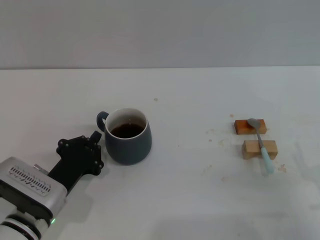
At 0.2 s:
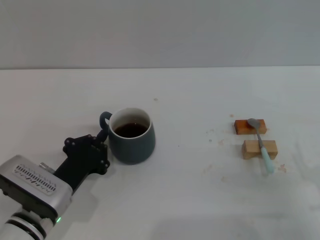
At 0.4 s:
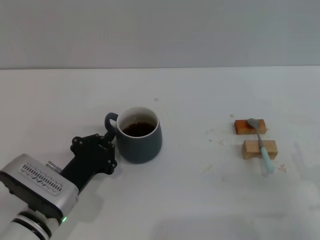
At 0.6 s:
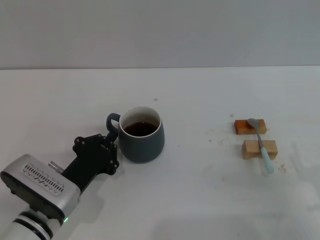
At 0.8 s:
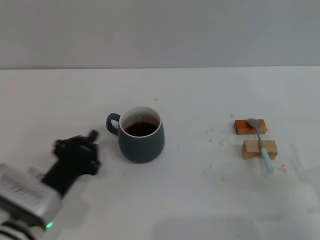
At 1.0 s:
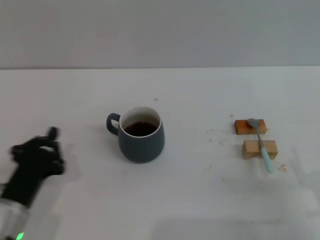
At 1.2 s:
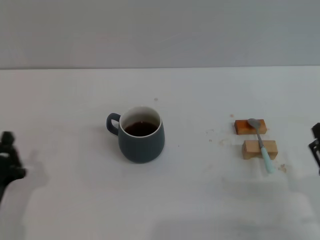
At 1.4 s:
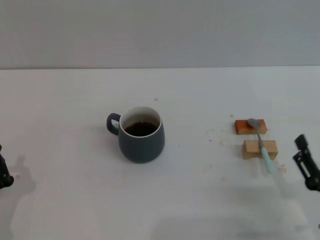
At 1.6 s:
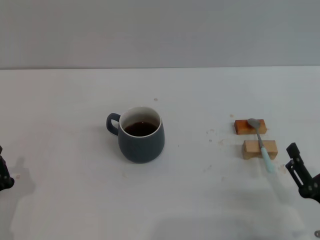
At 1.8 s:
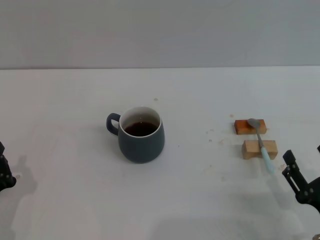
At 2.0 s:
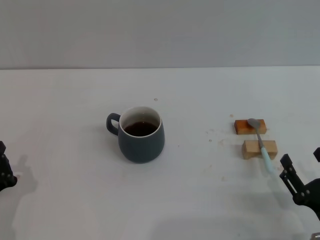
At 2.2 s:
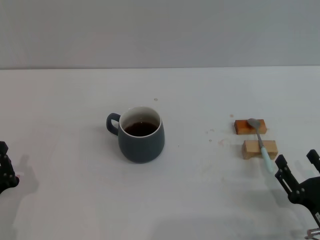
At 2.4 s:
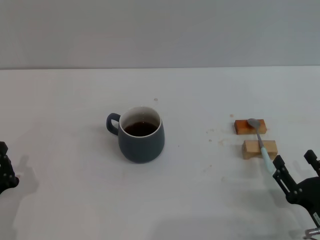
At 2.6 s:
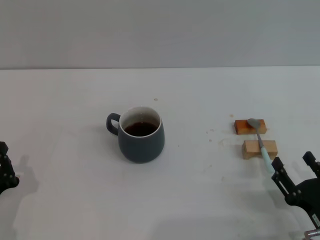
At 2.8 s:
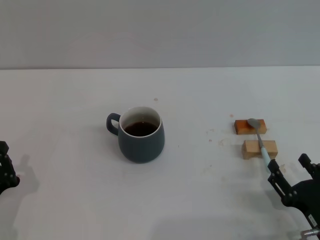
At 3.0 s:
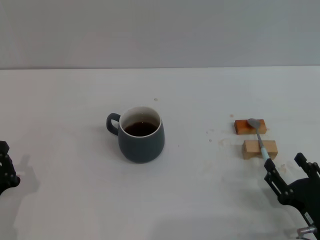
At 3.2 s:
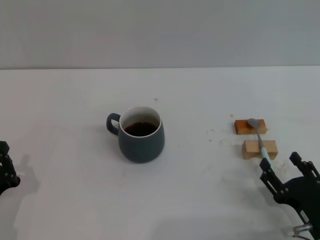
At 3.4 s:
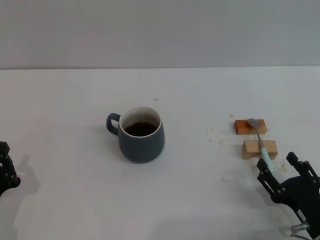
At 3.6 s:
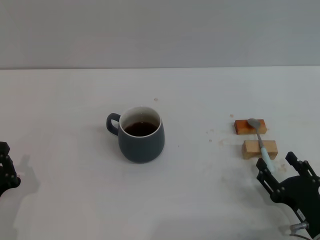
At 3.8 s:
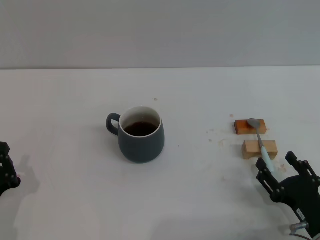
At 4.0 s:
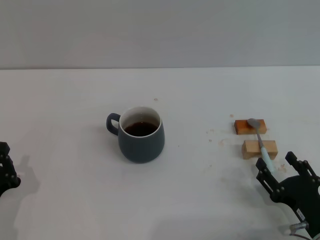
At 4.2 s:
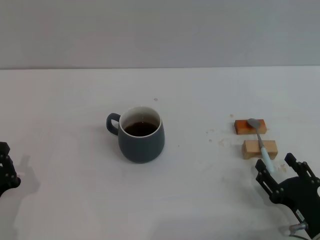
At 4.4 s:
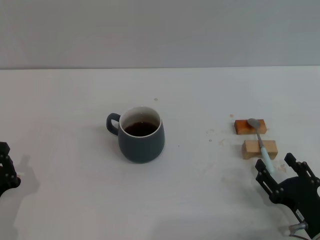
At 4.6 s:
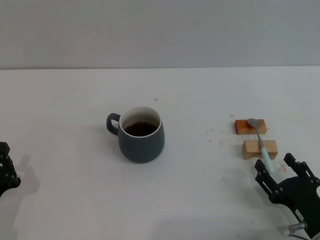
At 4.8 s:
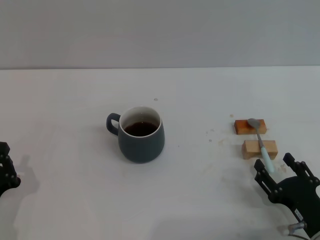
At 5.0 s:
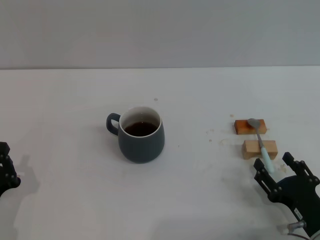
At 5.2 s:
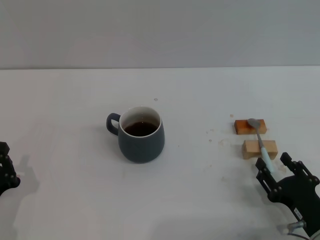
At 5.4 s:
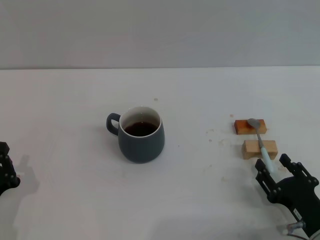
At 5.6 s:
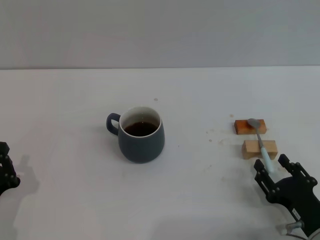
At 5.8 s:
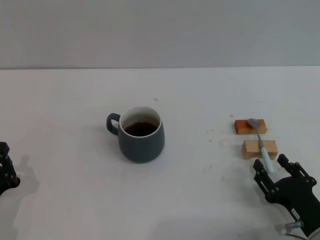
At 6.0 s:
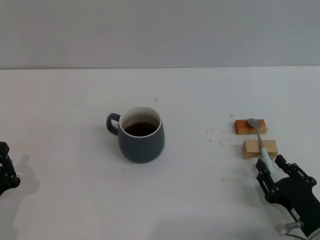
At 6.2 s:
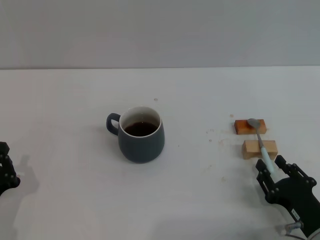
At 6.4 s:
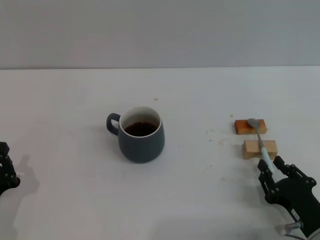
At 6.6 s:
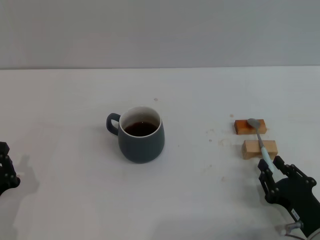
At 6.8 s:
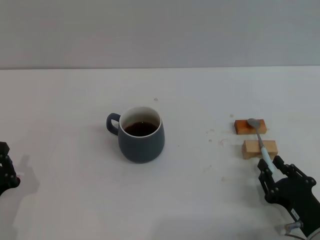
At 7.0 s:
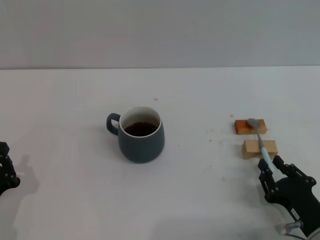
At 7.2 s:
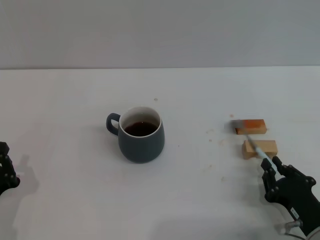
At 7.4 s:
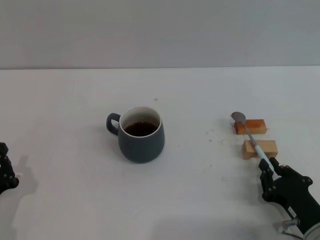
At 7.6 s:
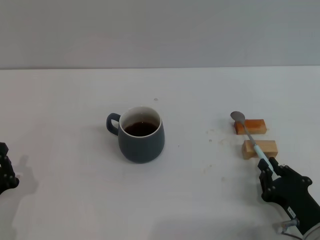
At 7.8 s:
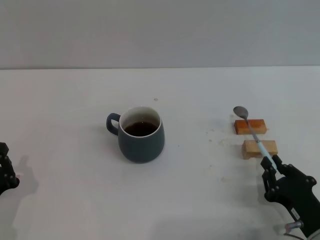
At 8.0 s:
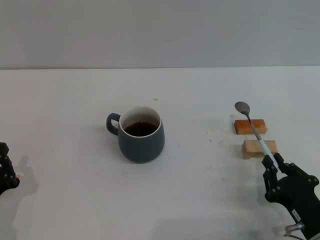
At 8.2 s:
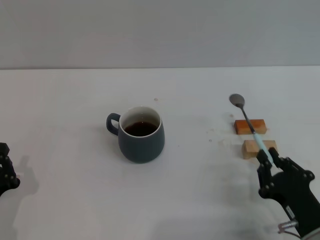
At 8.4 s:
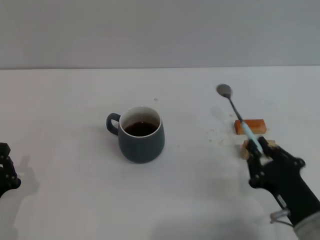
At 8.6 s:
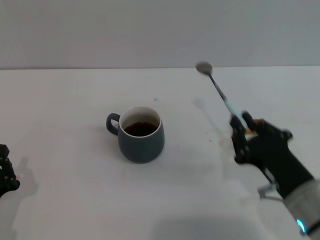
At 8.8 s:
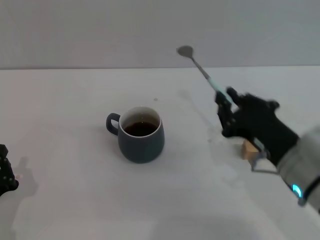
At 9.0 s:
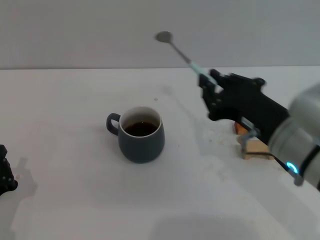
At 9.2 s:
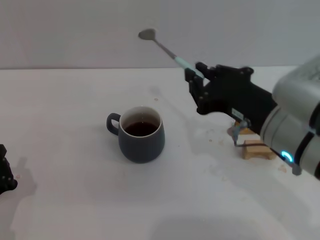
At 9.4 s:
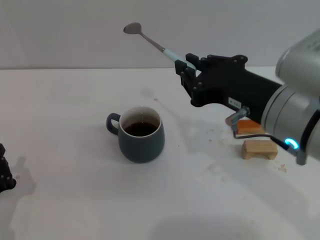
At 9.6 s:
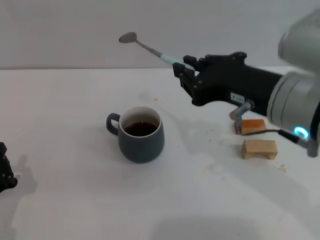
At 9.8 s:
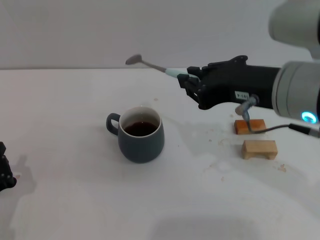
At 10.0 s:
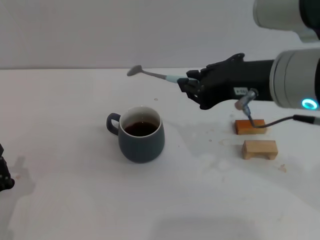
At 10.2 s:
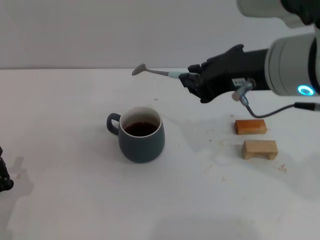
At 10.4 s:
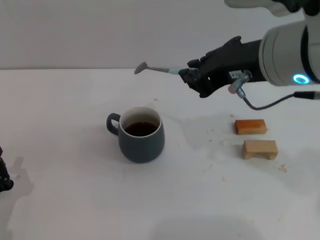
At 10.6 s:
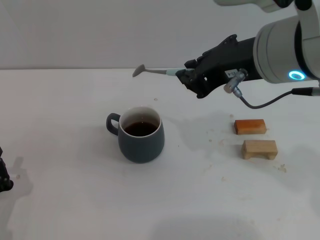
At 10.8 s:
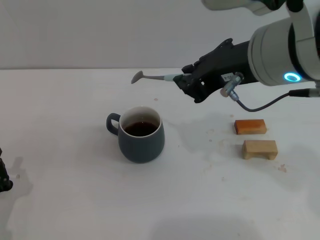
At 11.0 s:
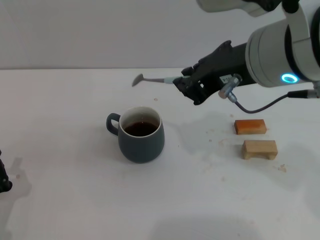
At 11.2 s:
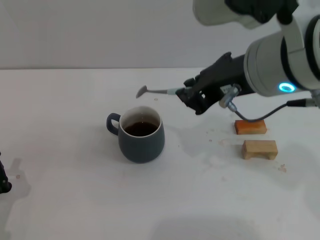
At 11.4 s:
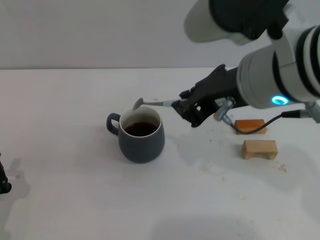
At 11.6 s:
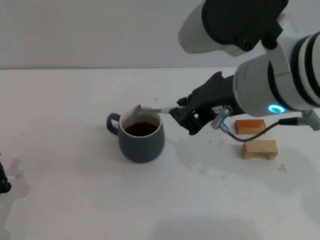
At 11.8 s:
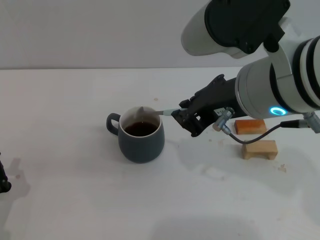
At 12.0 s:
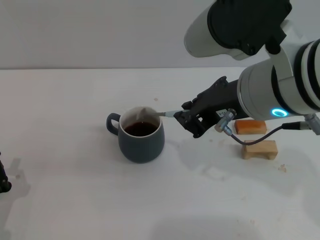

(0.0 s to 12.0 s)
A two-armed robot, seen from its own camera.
Task of the whole recording: Move the grey cup to the center, lift the blue spoon, stir it three times in the cup, and put the spoon into the cup.
Step, 1.0 s - 8.4 s: Pick up the spoon with the right gripper.
0.0 s - 1.6 s: The left gripper heads to the left and backward, covering roughly 10 cm.
1.6 s - 3.0 s: The grippers move only a little.
3.0 s - 4.4 s: Neither gripper changes place.
4.4 s - 6.0 s: Both grippers stay about where they are.
6.0 s - 7.6 s: The right gripper closes its fingers.
7.6 s - 9.0 s: The right gripper moves upward and to the left, roughly 20 cm.
9.0 s - 10.4 s: The right gripper heads upward, covering approximately 10 cm.

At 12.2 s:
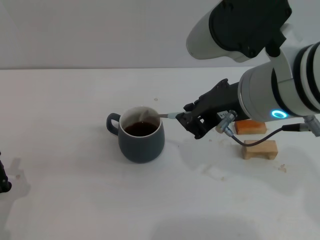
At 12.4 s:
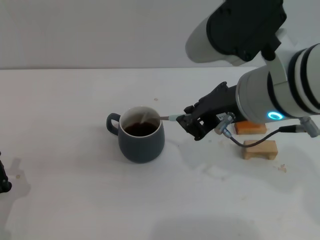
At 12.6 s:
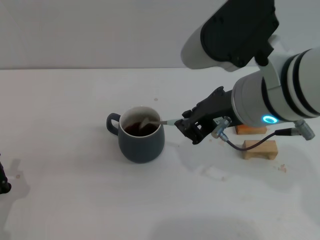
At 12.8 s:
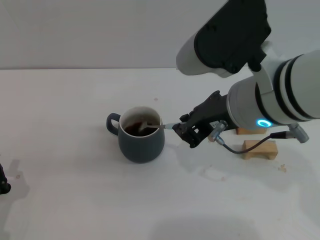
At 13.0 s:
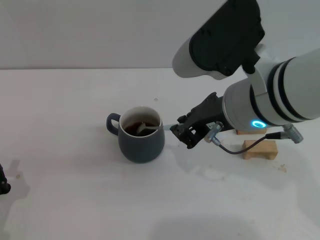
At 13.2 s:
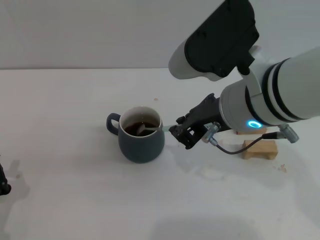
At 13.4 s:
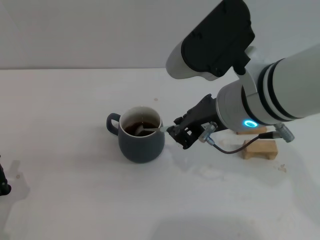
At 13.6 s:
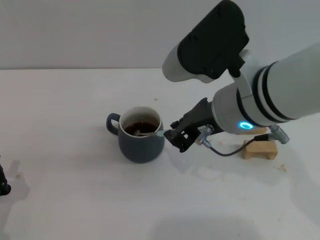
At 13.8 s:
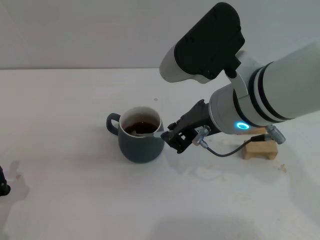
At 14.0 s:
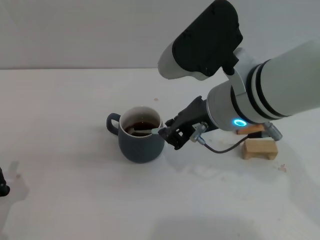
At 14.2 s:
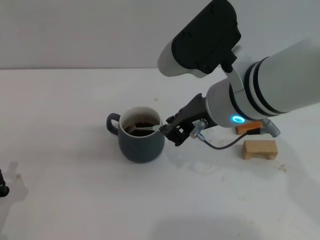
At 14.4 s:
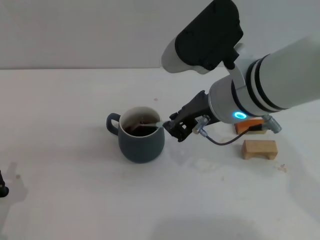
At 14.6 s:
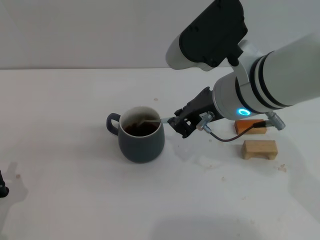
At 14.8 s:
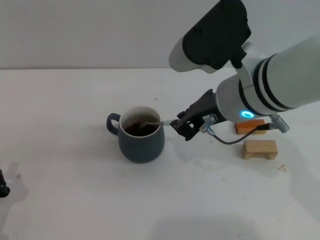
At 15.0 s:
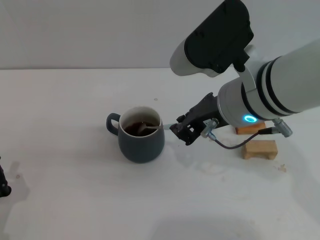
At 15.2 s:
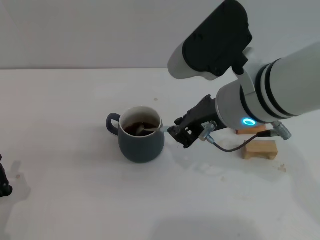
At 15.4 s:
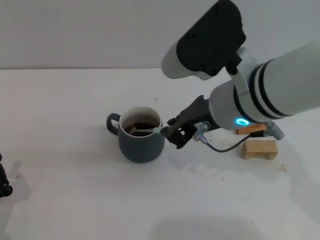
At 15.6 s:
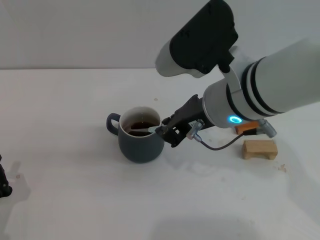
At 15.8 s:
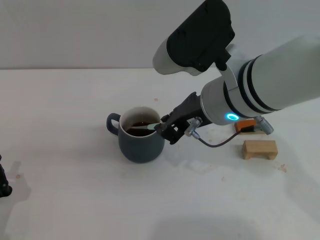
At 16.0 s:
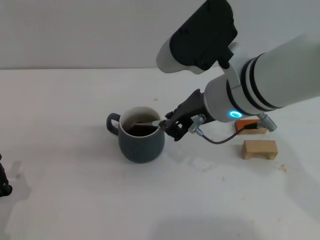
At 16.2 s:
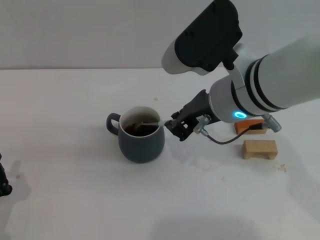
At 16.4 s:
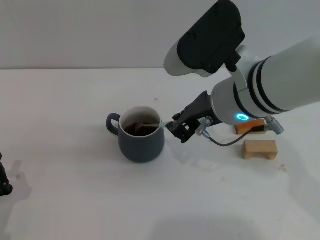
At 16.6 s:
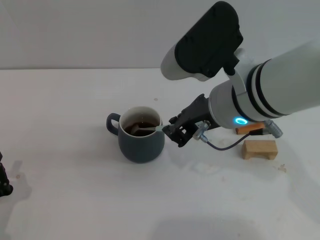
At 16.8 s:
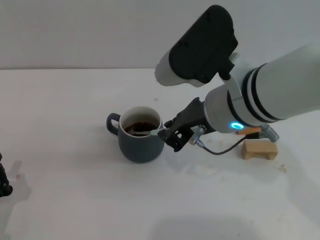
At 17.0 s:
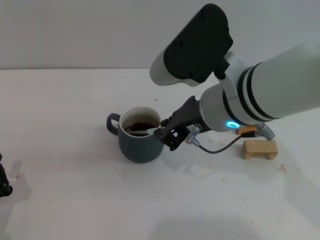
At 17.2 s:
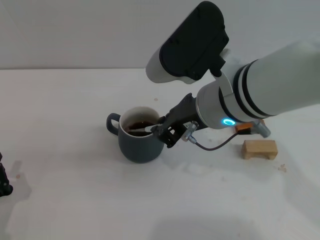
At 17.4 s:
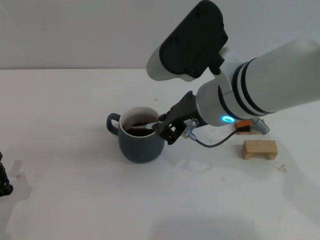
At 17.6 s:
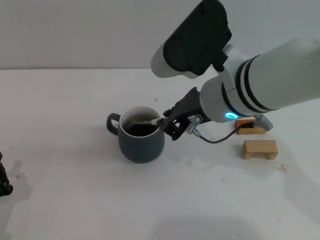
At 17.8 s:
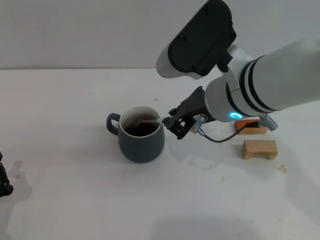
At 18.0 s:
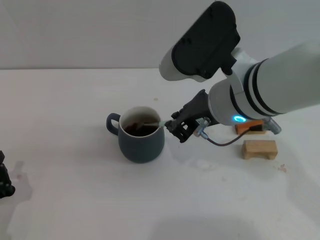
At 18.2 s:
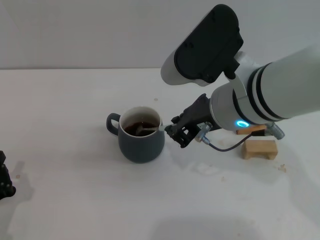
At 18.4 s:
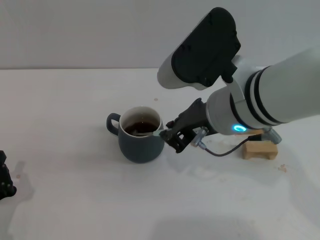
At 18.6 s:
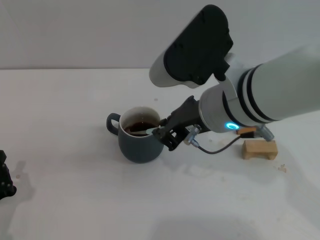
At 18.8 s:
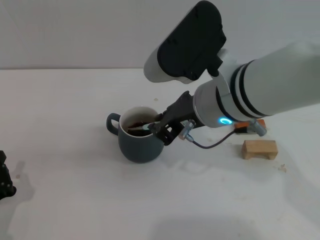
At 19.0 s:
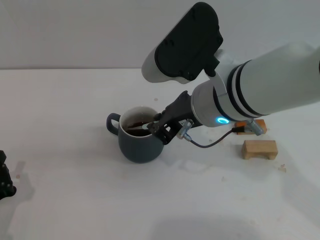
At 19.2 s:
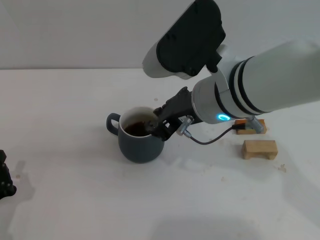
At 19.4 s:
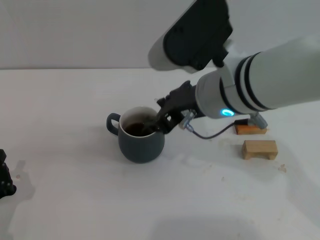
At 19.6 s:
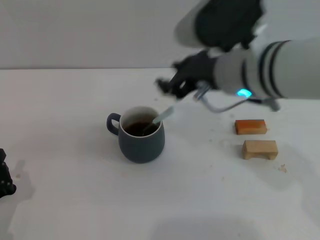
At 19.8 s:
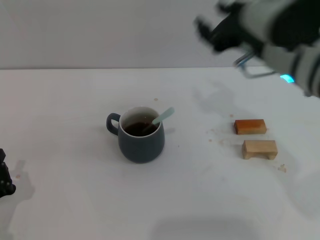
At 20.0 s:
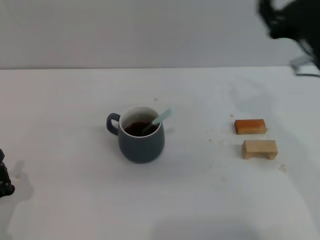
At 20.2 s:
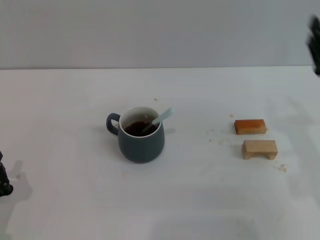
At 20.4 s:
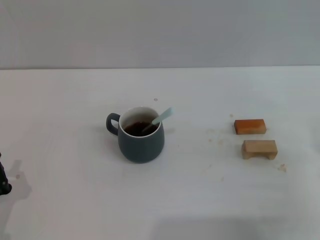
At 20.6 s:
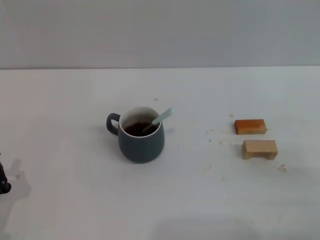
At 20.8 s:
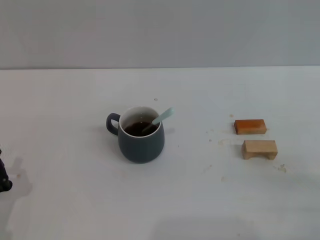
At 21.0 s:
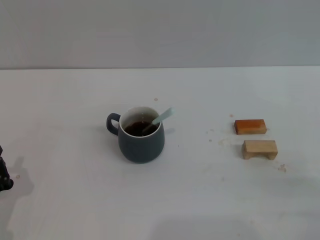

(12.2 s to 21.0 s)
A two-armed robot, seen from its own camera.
Task of the whole recording: Move the grey cup to the center, lift the blue spoon, stir it three times in the cup, and put the spoon into the cup.
Step, 12.2 s - 19.6 s: Stir the coffee in the cup with the right gripper.
12.2 s - 13.6 s: There are only small adjustments of the grippers.
13.6 s - 16.6 s: There are only small adjustments of the grippers.
16.6 s - 18.0 s: Both grippers stay put.
18.0 s - 19.6 s: The right gripper opens its fingers.
19.6 s - 21.0 s: The right gripper moves to the right, downward and backward, some 30 cm, and opens up.
